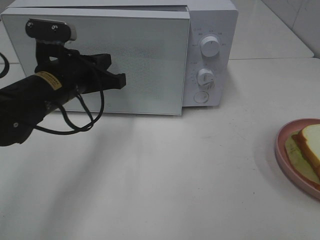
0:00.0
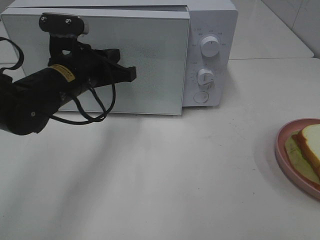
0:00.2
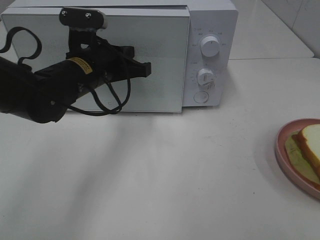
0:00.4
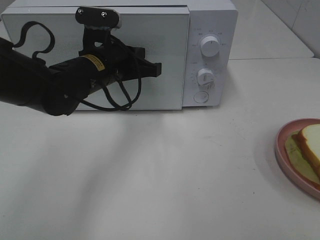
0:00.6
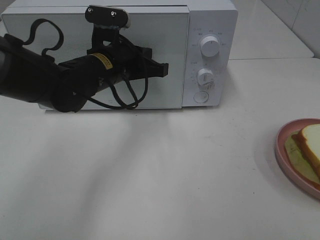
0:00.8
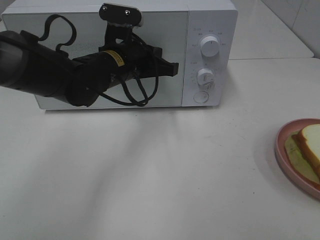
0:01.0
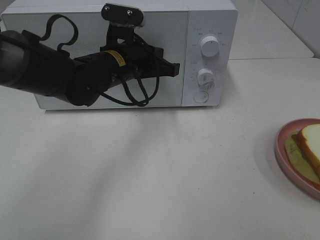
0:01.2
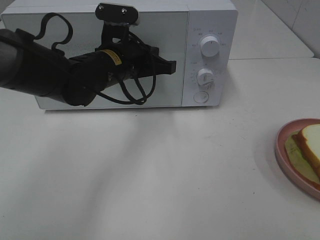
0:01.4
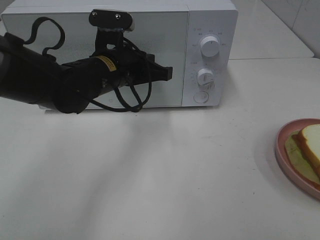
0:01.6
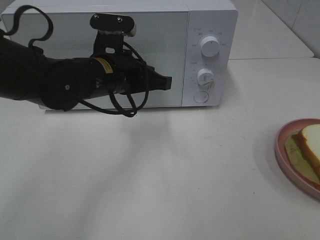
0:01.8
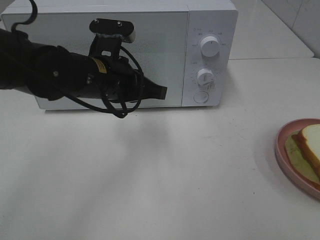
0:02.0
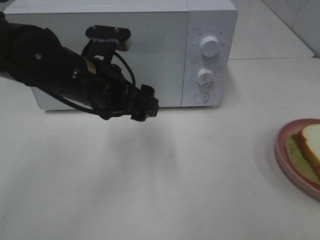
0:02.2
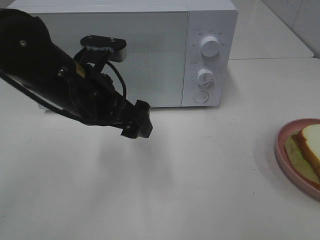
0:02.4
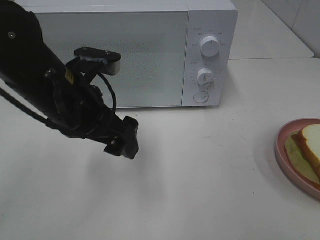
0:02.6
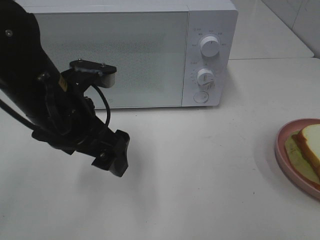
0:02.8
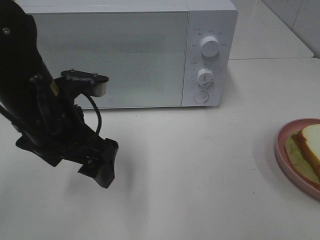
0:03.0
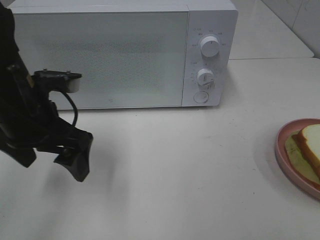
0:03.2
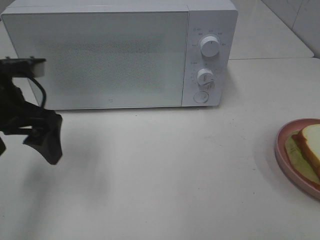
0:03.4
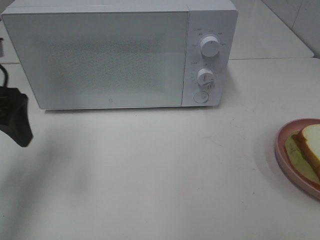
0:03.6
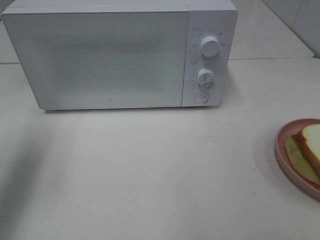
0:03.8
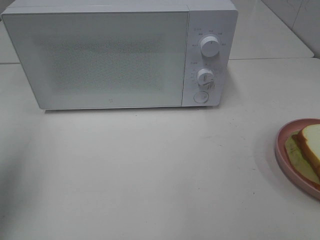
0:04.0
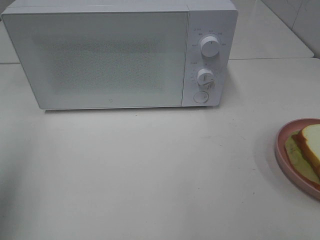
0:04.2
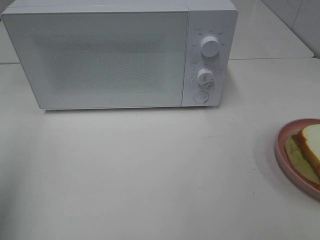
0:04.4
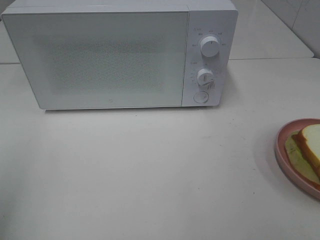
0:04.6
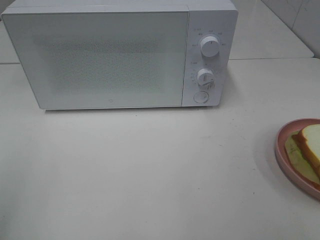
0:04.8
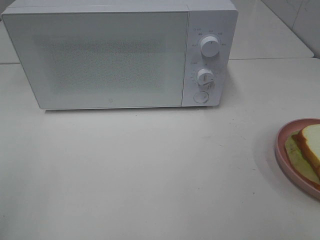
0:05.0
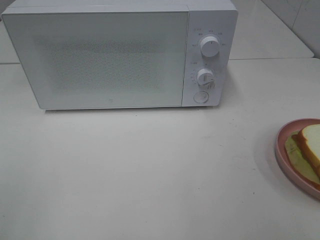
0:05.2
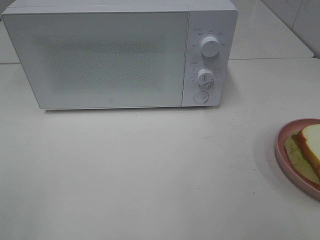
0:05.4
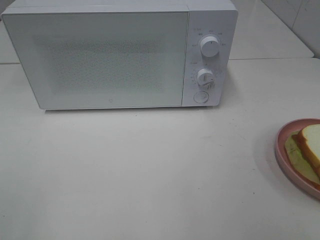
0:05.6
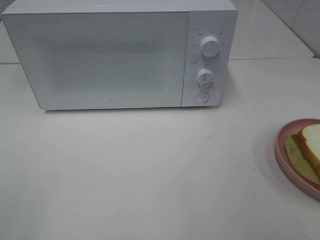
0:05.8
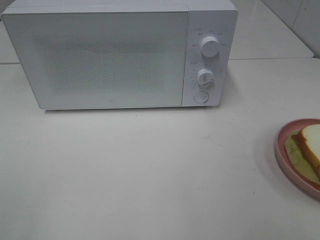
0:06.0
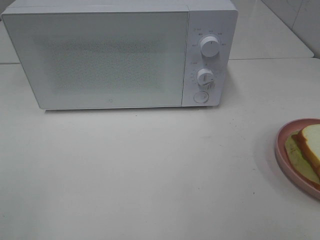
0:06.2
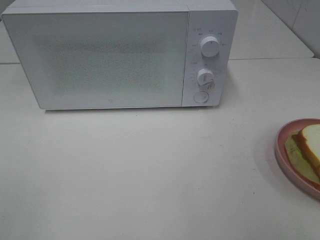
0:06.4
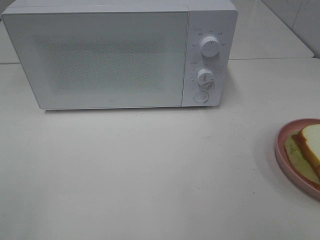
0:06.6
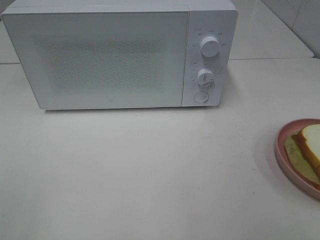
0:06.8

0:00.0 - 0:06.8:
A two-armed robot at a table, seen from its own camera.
Task of the whole recording: Heat Sandwich.
Step, 0:00.0 - 0:02.4: Left hand: close the microwave door.
0:00.0 - 0:01.4: The left gripper heads to the right, covering about 10 cm.
0:01.4 - 0:02.8: The left gripper shifts roughly 15 cm backward and to the left, and opens its fingers.
0:02.8 - 0:04.0: The left gripper travels to the left and upward by some 25 cm.
0:04.0 - 0:05.4: The left gripper is displaced backward by some 20 cm.
0:05.4 - 0:06.8: Neither gripper changes place.

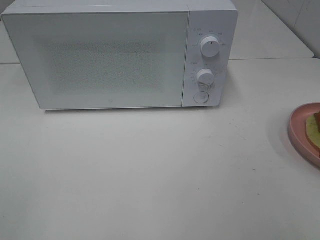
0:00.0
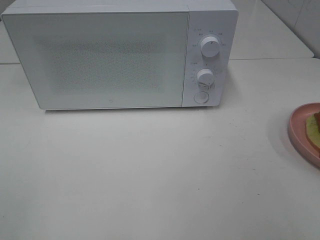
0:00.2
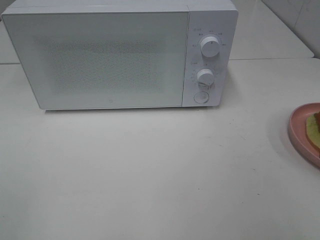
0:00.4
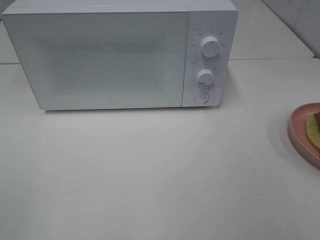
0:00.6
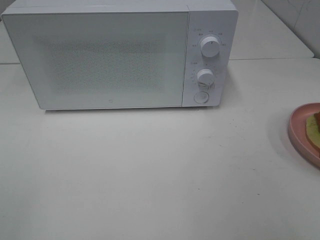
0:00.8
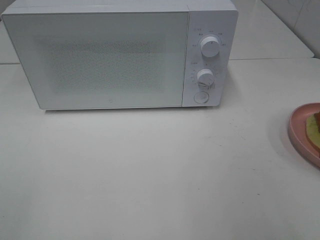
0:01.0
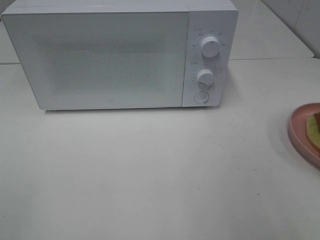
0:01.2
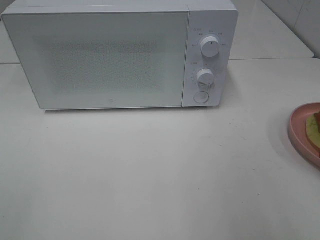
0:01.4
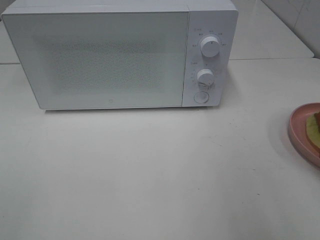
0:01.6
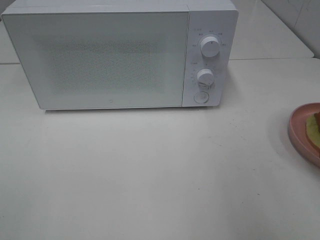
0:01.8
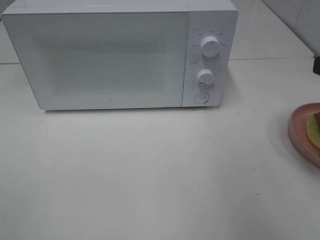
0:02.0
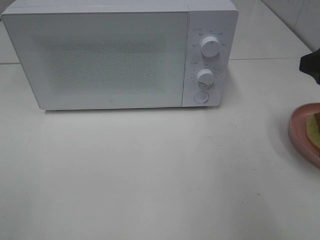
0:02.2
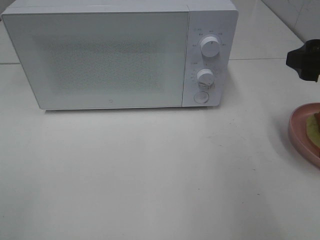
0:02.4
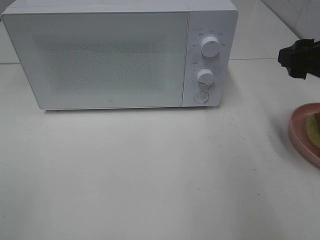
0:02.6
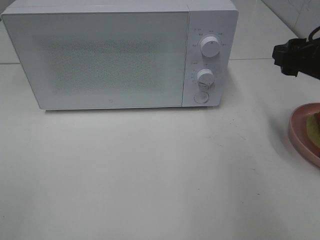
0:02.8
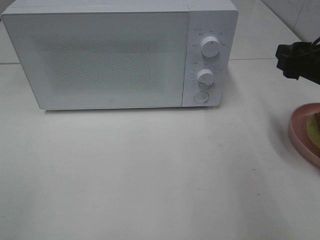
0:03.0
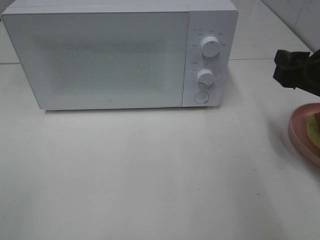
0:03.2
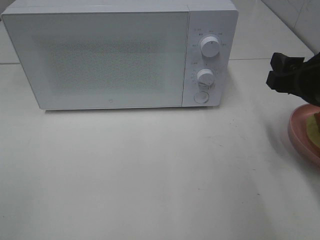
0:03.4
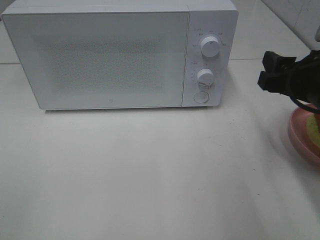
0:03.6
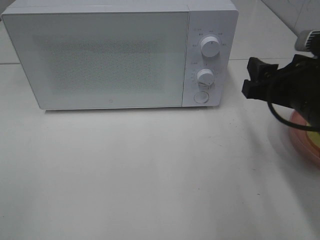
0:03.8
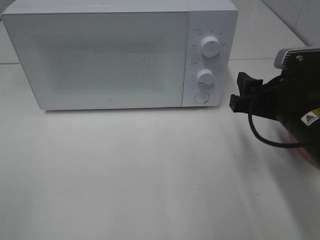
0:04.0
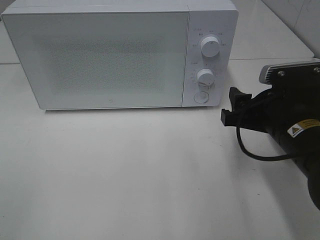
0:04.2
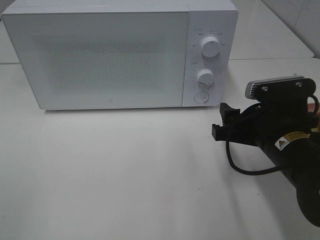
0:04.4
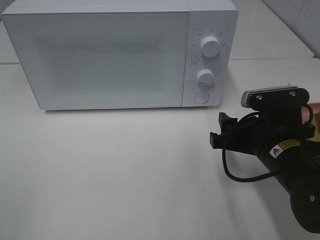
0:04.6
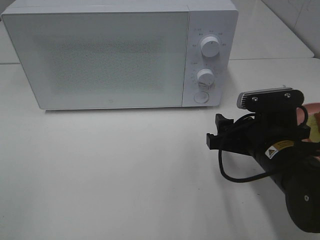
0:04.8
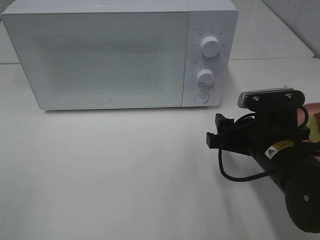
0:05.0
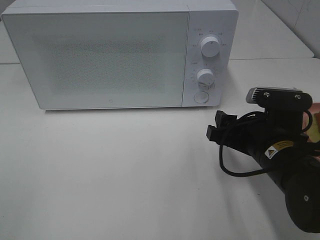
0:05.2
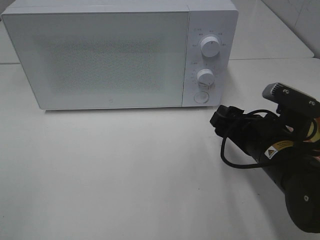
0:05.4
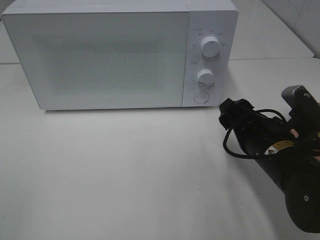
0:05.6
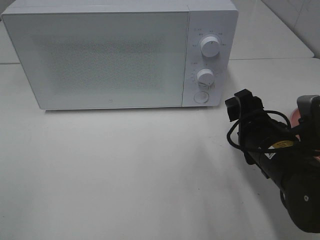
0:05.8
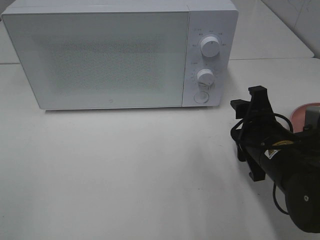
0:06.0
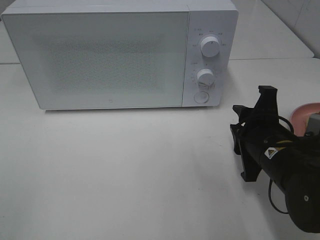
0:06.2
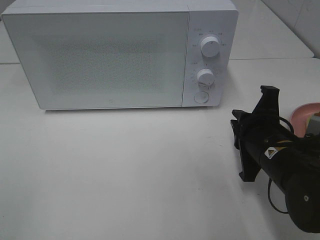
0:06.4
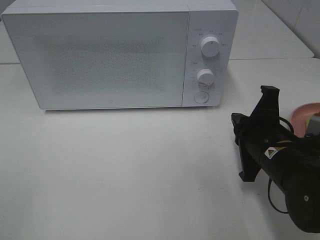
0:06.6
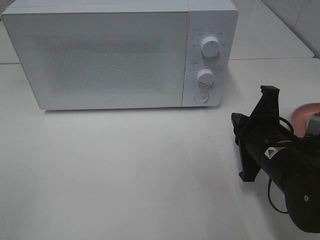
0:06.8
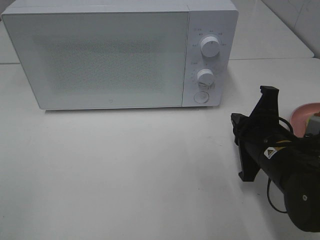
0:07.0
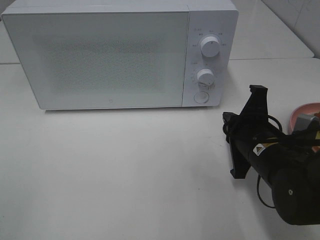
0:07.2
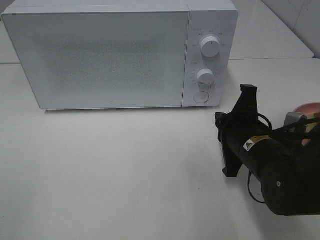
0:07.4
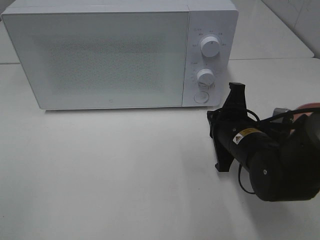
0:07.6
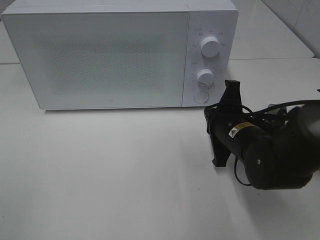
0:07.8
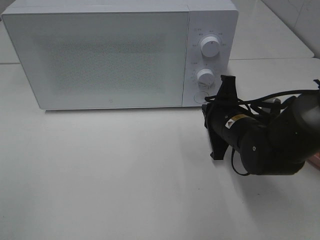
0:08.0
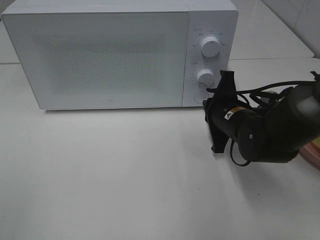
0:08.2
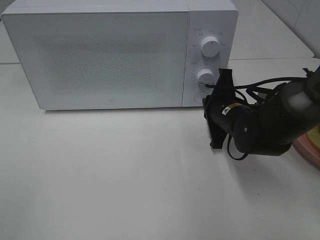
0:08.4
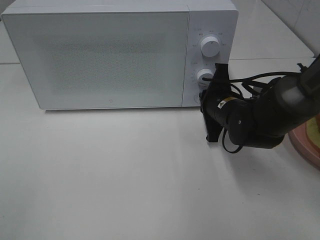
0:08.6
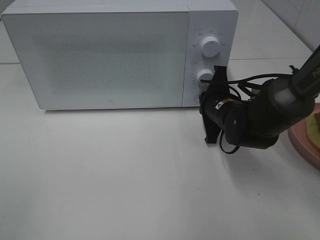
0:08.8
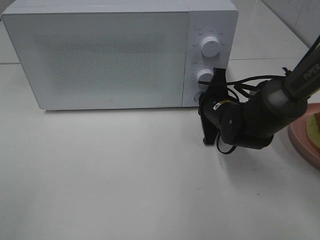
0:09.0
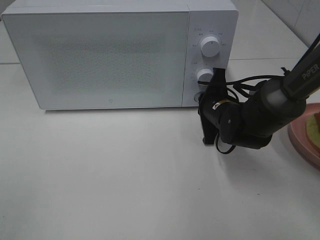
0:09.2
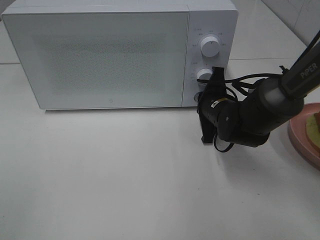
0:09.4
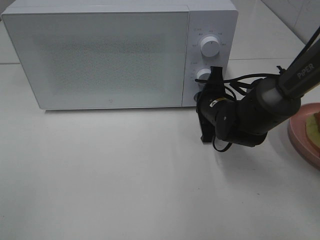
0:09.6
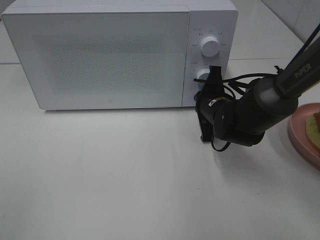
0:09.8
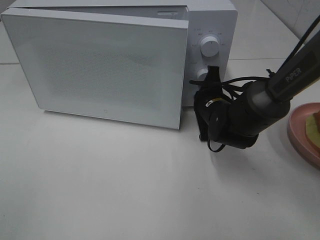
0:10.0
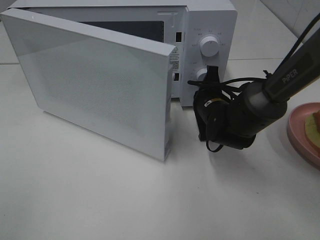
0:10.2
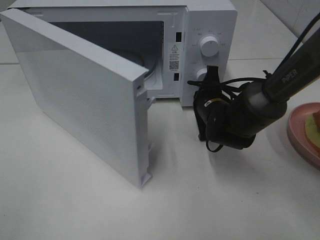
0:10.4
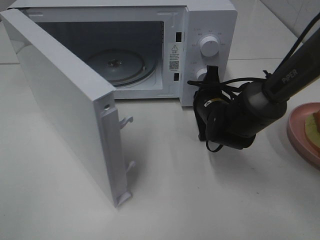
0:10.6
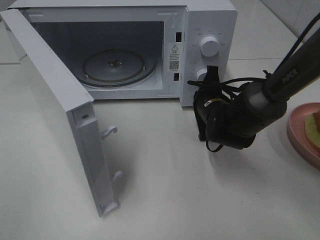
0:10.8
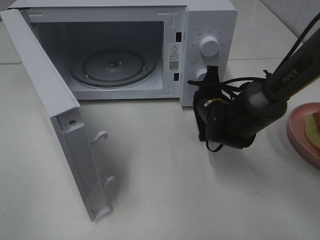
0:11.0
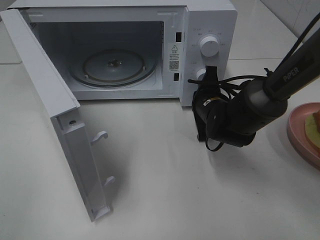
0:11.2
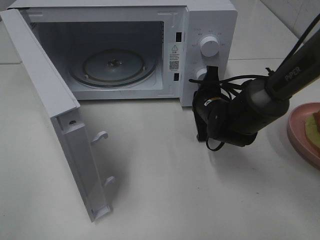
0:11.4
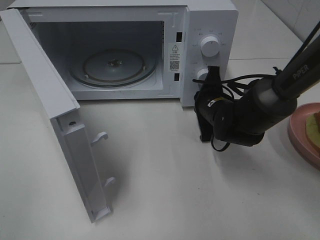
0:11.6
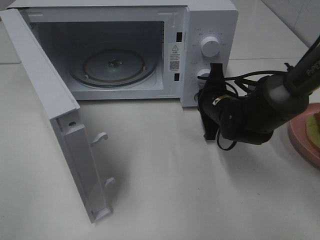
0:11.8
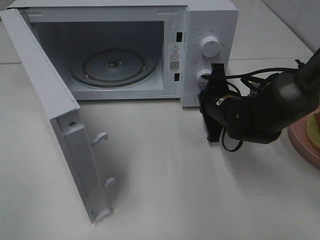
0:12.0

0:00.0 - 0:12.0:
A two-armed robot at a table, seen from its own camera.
Task of the whole recording: Heat Sandwich.
0:01.6 - 0:03.0: The right gripper travels forward and downward by some 15 cm.
0:03.0 - 0:04.4: The right gripper shifts roughly 10 cm to the left and downward.
0:06.0 - 0:07.6: The right gripper moves some 5 cm, and closes up.
0:07.6 - 0:09.0: The right gripper goes about 10 cm forward.

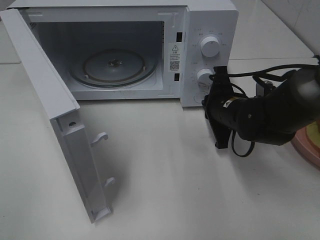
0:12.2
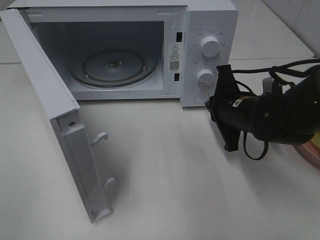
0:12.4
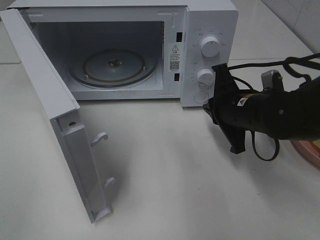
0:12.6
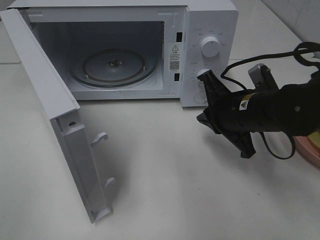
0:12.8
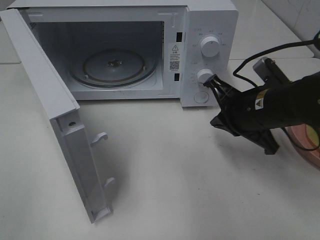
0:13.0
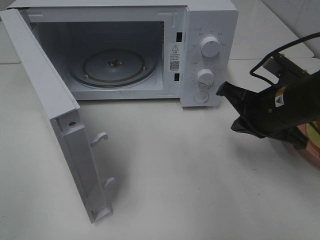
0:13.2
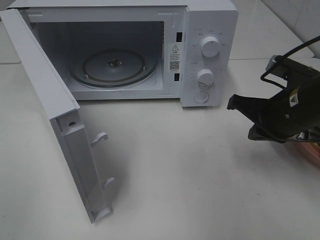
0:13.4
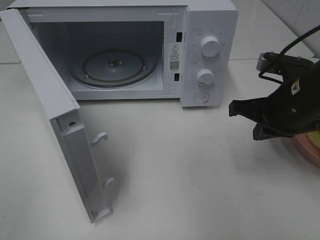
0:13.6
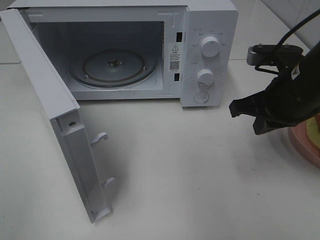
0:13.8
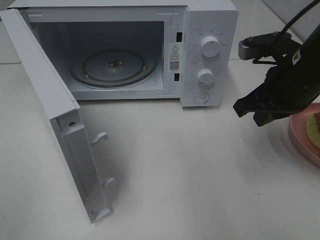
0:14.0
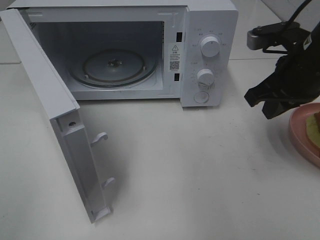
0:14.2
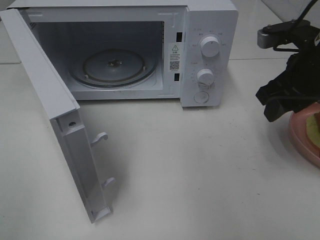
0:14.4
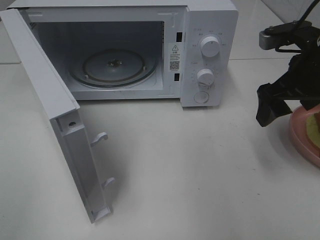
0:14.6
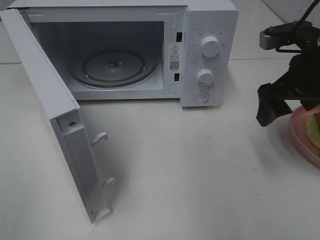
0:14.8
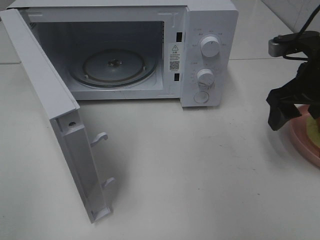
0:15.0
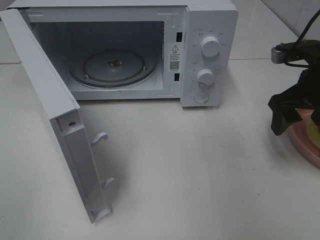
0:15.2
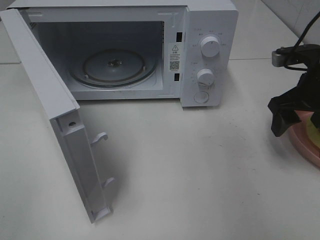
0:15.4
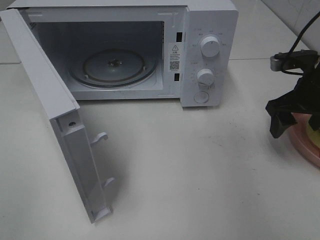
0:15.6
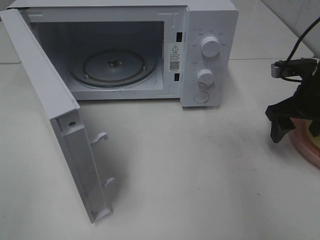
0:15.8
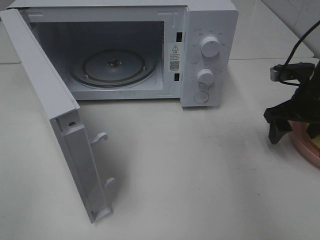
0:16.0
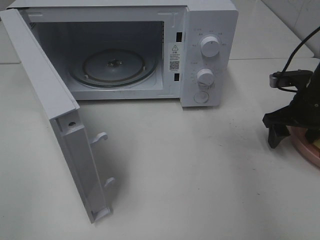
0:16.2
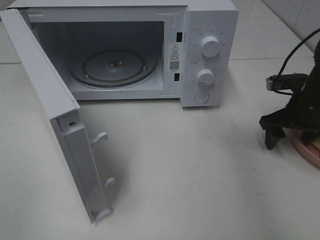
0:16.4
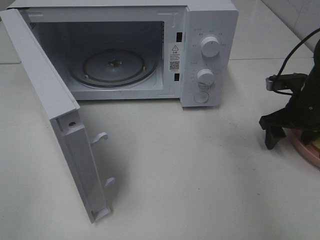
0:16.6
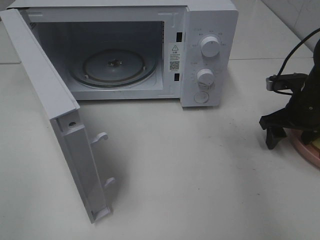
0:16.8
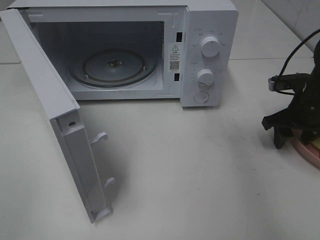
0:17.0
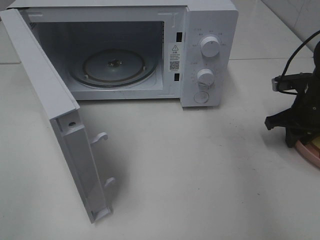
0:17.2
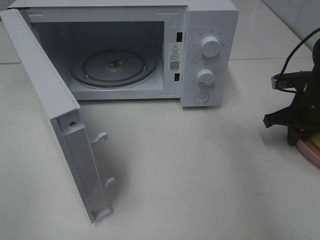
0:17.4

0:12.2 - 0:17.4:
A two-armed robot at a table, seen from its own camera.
Task of the whole recording: Heat Sandwich.
0:12.2 - 0:14.0: The right gripper shifts some 15 cm upward and to the right.
0:14.0 - 0:15.6: The right gripper travels to the right by roughly 5 cm, and opens.
0:15.6 - 0:17.4: The right gripper travels downward by approximately 5 cm, and closes up.
